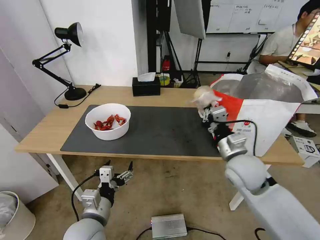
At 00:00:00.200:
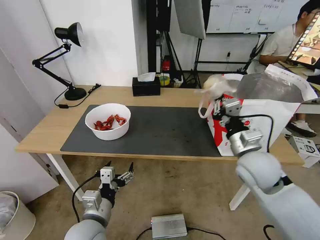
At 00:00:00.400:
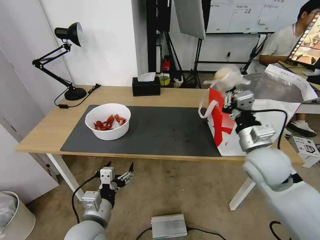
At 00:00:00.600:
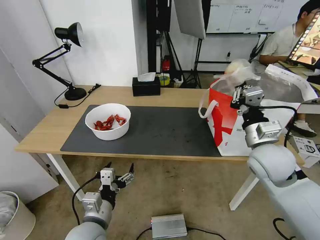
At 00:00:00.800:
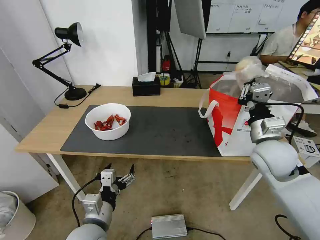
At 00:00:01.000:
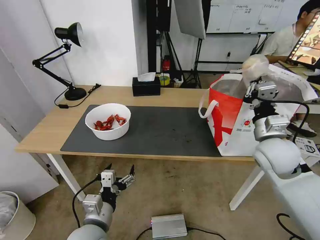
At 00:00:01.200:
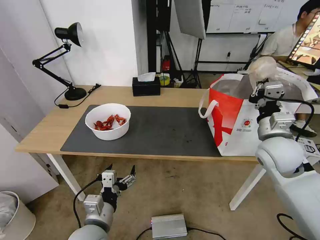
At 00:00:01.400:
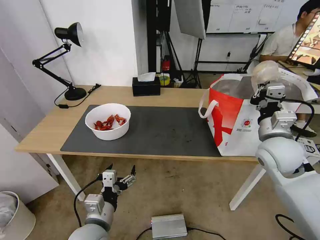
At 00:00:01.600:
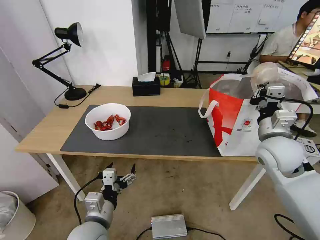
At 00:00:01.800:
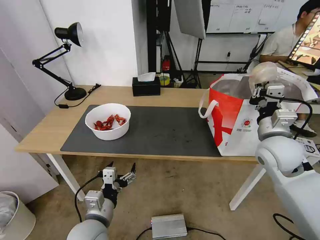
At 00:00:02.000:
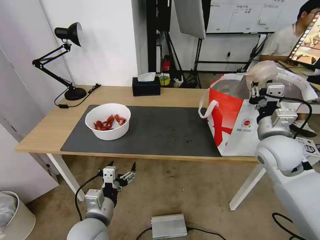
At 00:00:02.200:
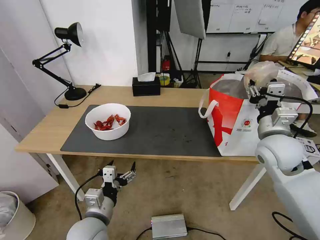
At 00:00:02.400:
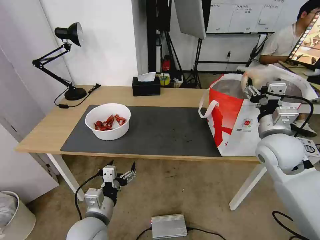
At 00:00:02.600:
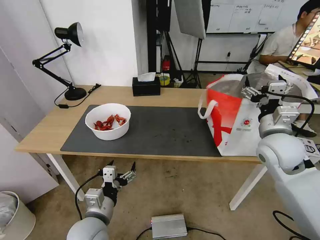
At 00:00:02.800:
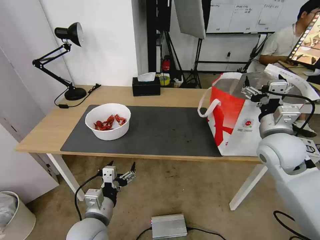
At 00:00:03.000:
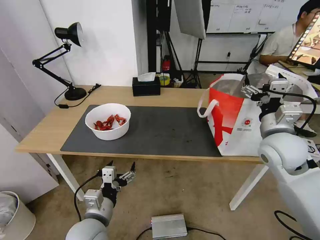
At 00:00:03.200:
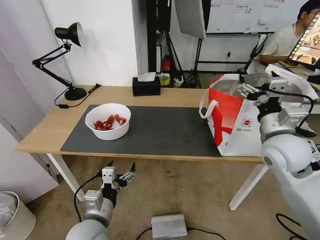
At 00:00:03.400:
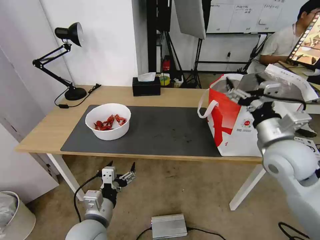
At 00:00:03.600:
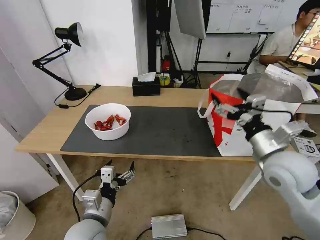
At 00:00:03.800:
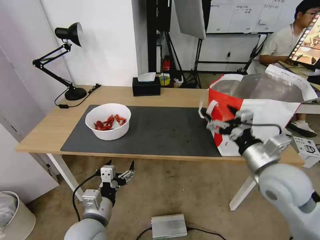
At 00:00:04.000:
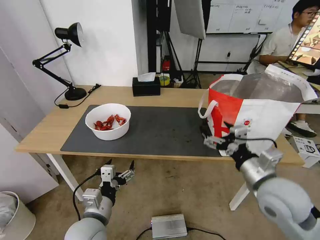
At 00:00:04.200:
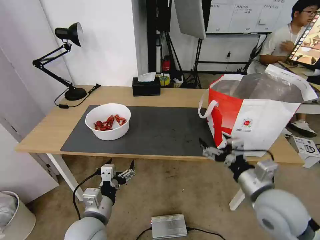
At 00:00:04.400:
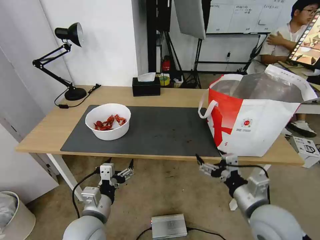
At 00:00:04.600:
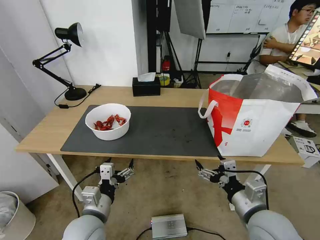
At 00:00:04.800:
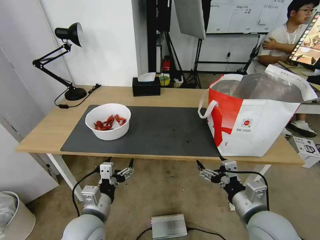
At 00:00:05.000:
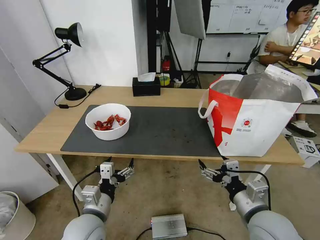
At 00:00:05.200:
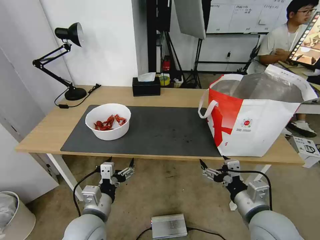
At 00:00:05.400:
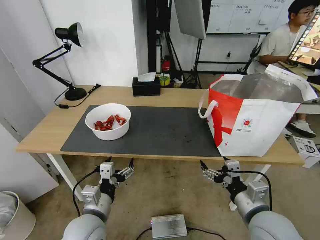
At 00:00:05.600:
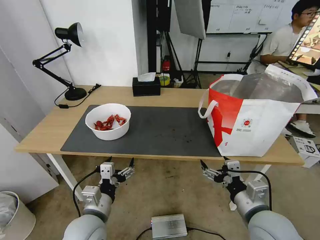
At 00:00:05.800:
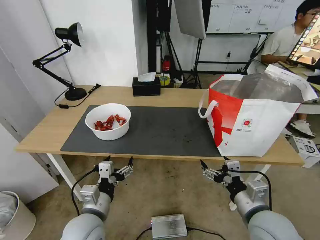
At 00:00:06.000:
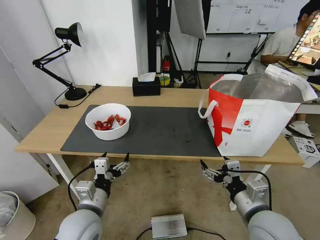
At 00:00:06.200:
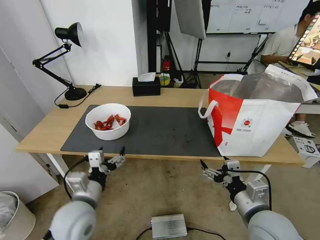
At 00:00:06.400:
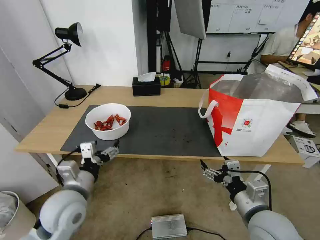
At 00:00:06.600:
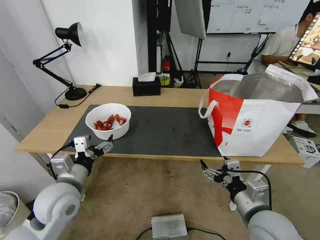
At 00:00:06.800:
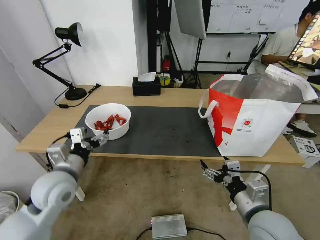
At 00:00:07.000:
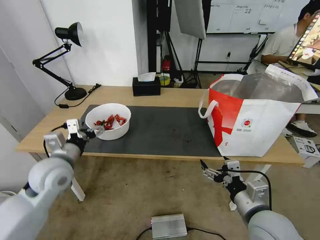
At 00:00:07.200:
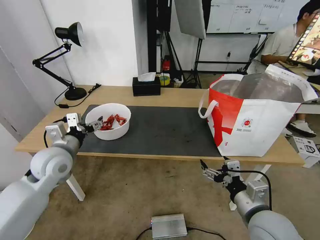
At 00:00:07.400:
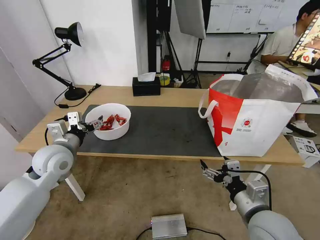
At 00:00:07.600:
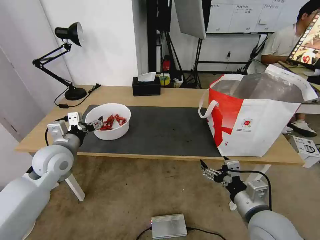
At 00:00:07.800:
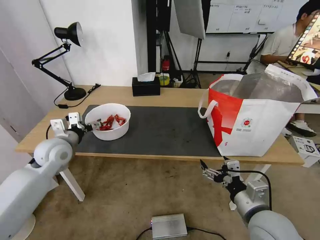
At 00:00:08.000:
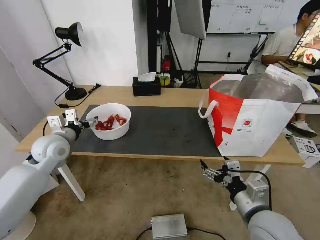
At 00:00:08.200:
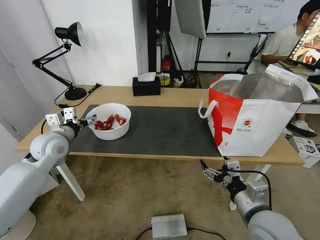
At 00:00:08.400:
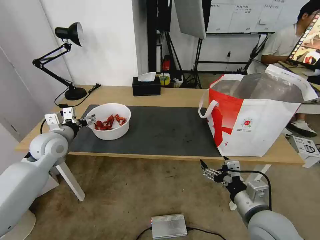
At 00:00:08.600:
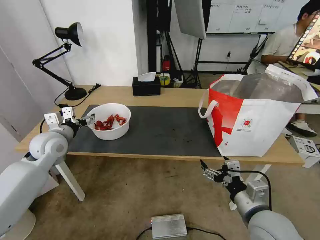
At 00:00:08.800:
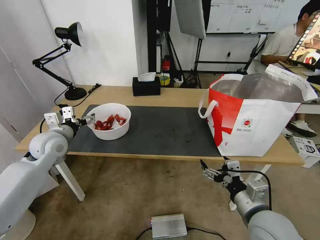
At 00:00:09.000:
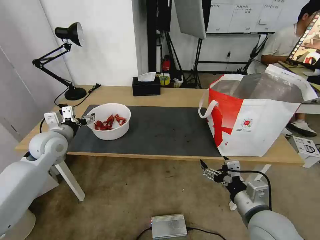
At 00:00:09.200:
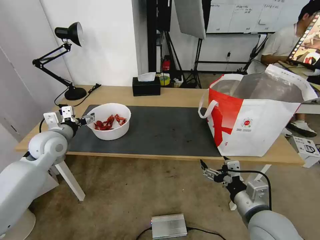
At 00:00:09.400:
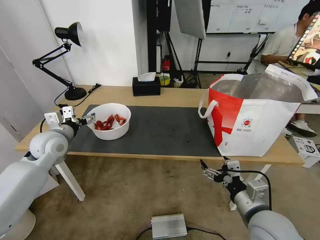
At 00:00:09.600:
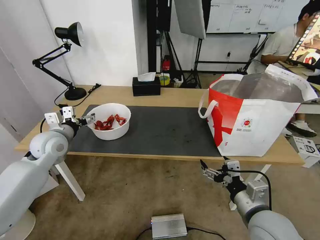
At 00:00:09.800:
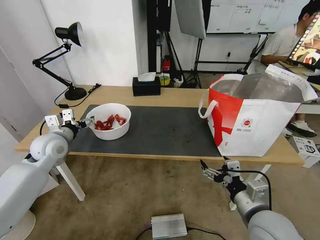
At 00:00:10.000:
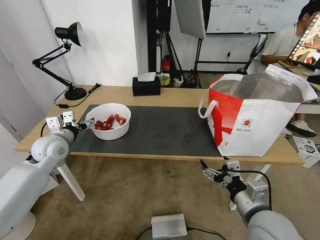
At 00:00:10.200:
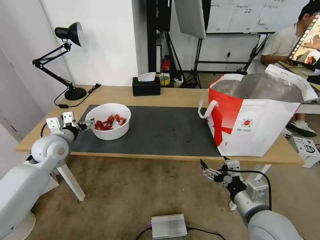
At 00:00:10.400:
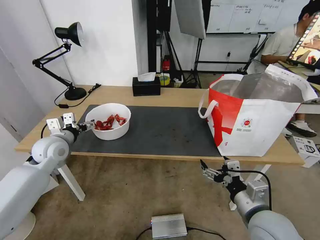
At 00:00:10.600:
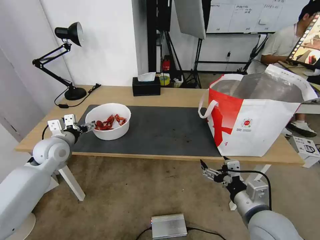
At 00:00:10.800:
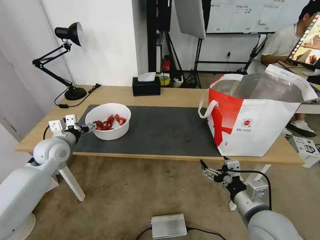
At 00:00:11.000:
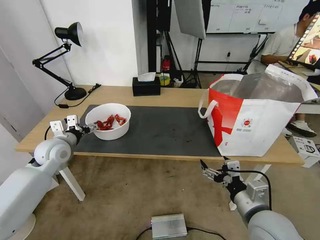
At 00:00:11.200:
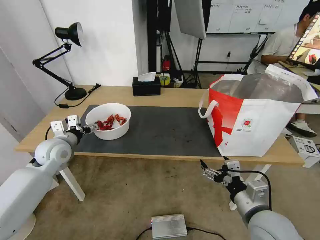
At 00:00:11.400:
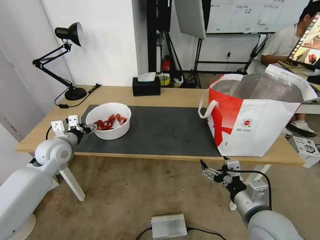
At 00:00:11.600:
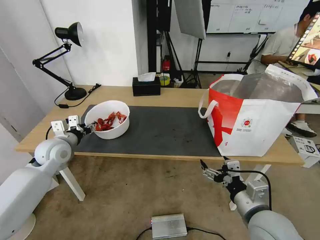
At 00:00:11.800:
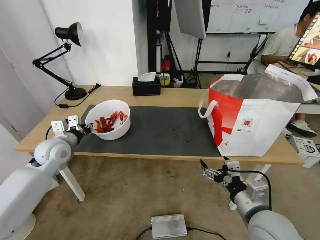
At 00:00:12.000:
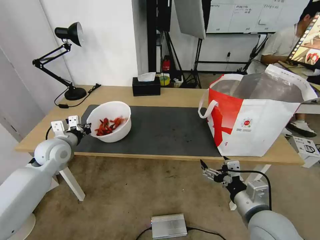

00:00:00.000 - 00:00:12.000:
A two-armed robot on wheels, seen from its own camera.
Task of the whole recording: Pick up the trash from the table and place it into the takeout bag.
00:00:00.000 - 00:00:01.600: The right gripper heads to the right and upward, covering about 10 cm.
00:00:01.600 - 00:00:03.000: The right gripper opens.
00:00:03.000 - 00:00:04.400: The right gripper goes about 20 cm backward and downward.
00:00:04.400 - 00:00:06.000: There are only small adjustments of the grippers.
00:00:06.000 - 00:00:07.600: The left gripper moves forward, to the left and upward, about 20 cm.
00:00:07.600 - 00:00:09.000: The left gripper goes approximately 5 cm forward.
00:00:09.000 - 00:00:10.400: The grippers make only small movements.
00:00:10.400 - 00:00:12.000: The left gripper closes up.

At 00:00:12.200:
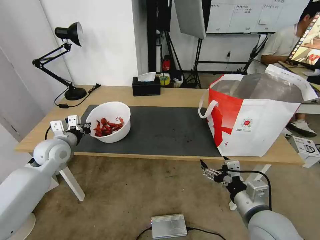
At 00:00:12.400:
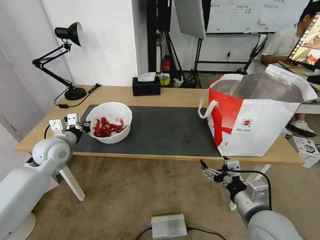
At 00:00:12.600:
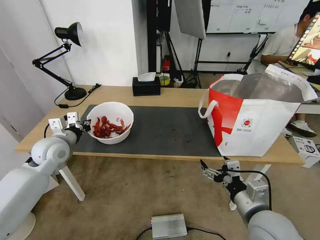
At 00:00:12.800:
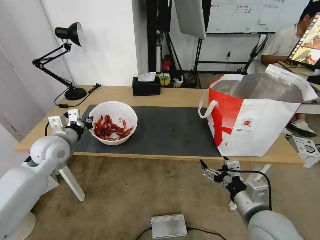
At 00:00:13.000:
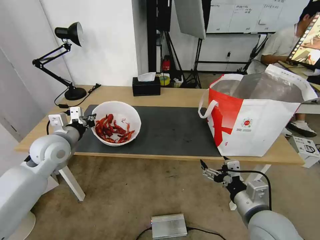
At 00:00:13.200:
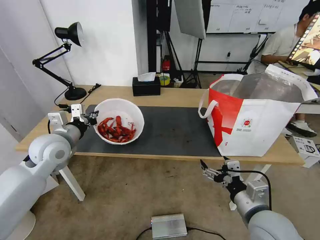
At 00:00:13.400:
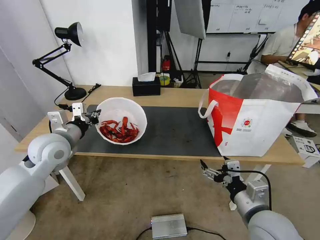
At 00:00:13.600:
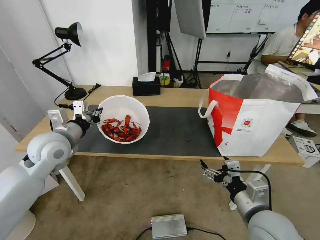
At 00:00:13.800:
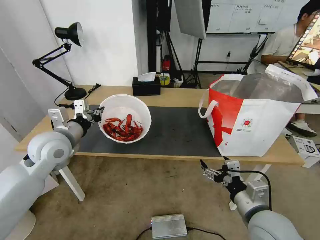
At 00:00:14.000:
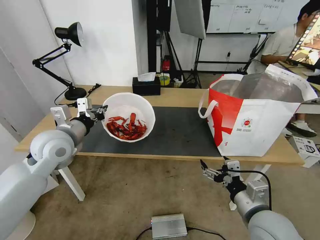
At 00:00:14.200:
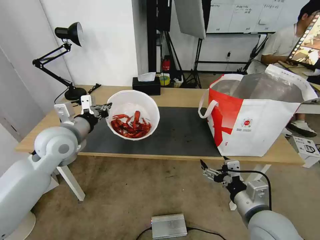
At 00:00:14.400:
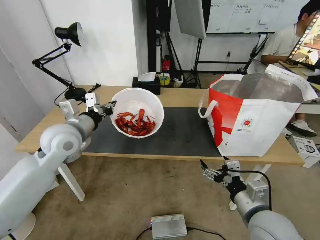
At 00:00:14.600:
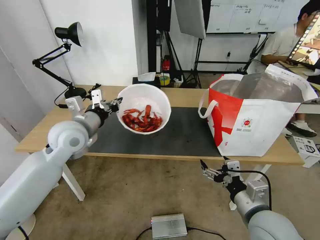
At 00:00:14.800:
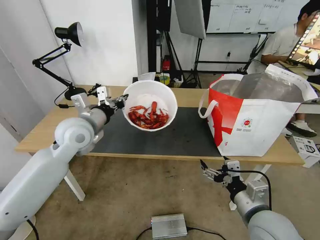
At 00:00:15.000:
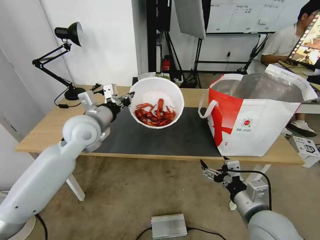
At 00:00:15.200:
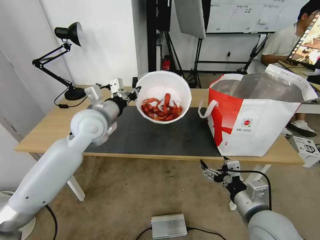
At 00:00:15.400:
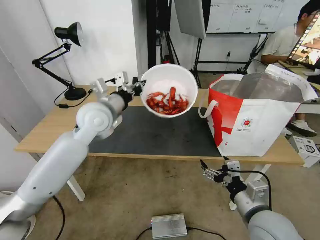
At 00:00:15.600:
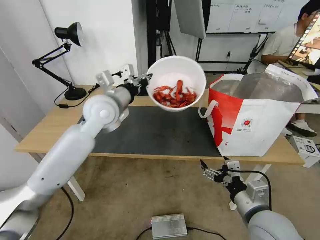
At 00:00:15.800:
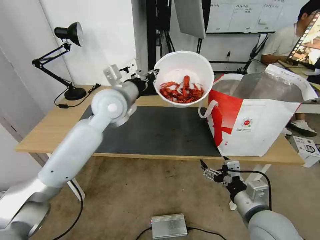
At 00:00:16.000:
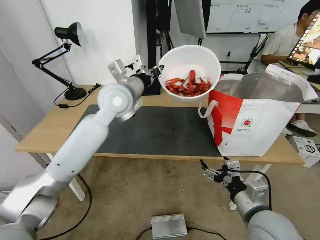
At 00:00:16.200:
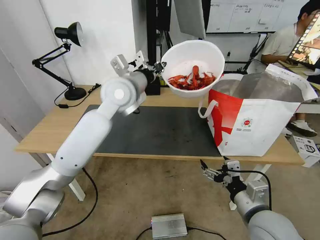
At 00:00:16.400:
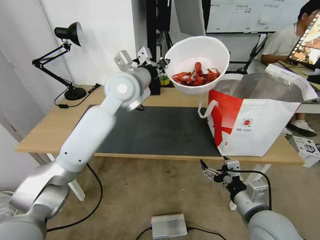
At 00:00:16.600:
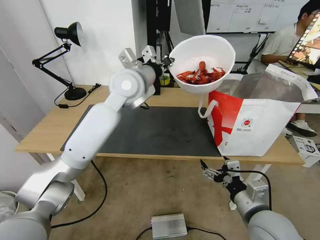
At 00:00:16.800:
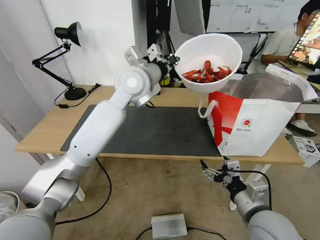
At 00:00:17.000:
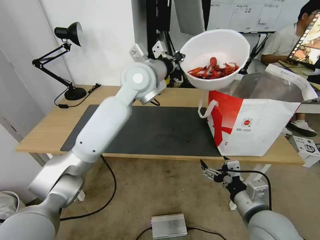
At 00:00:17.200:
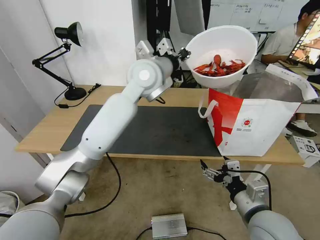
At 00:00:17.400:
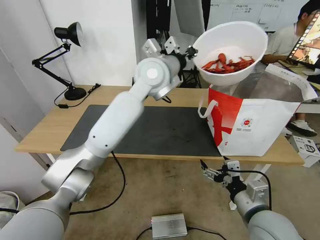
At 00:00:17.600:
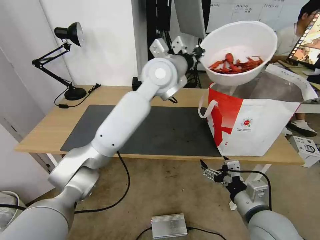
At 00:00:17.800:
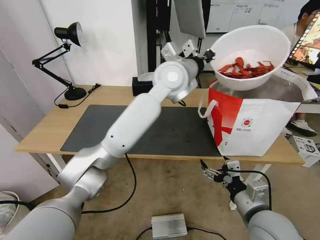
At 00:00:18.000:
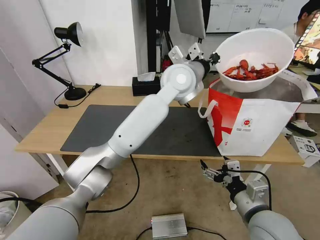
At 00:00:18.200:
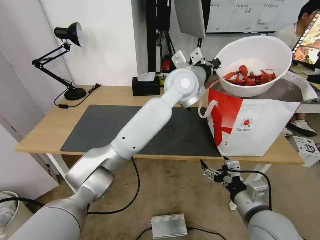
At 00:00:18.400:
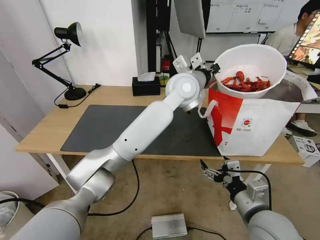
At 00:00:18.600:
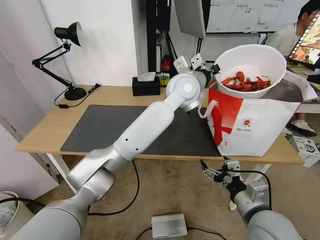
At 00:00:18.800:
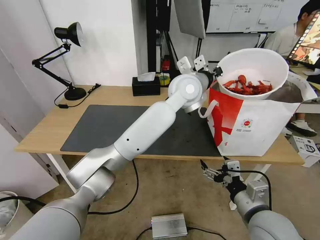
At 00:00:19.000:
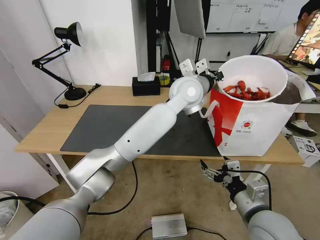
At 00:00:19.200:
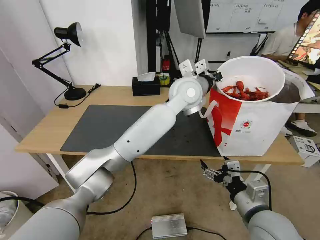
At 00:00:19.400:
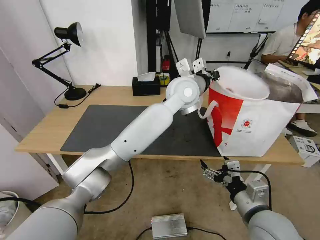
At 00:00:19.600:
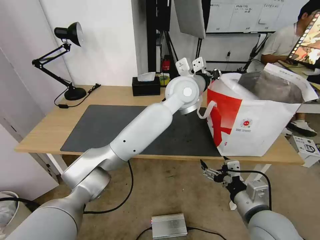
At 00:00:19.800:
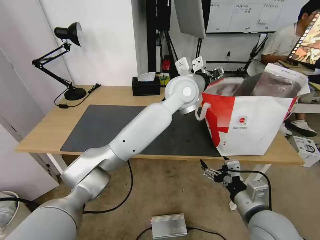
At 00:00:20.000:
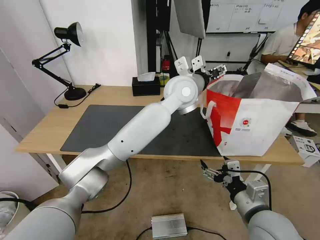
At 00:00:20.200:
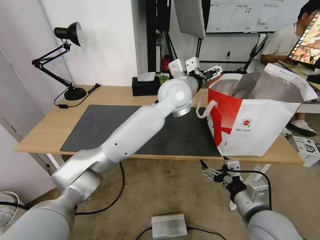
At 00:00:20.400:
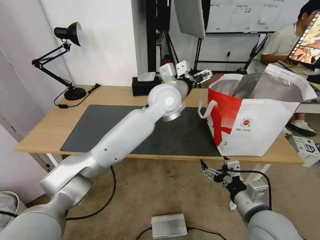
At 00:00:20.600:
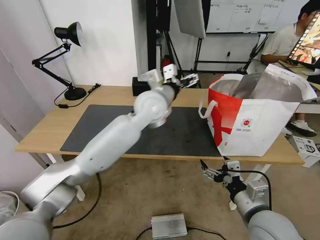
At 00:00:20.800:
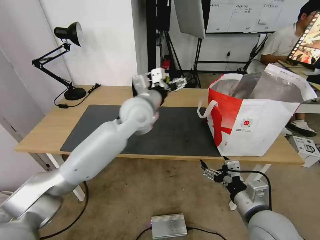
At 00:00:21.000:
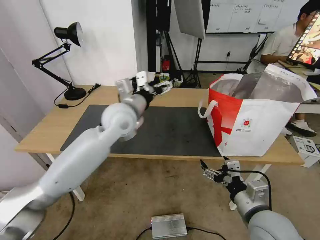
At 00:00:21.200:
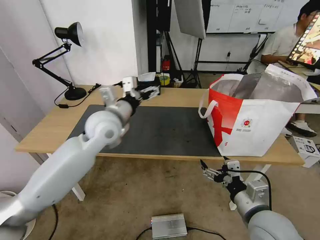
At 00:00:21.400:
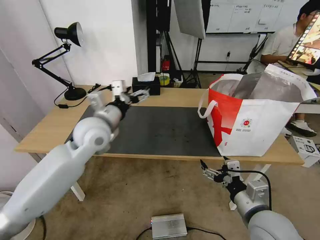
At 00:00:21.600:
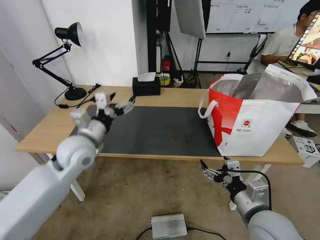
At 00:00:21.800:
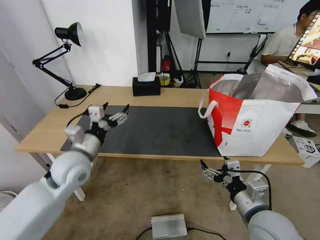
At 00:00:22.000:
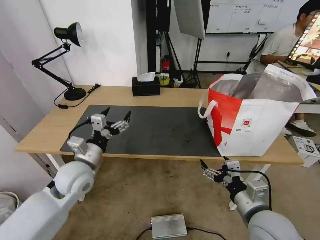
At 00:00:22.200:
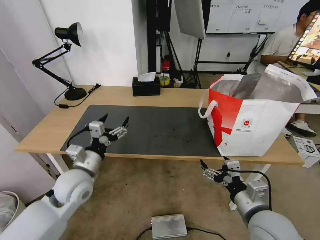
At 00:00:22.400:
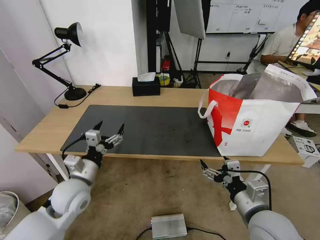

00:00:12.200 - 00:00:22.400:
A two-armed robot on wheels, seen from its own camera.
Task of the whole recording: Pick up the trash from the table and place it into the takeout bag.
00:00:12.200 - 00:00:13.600: The left gripper heads upward, covering some 5 cm.
00:00:13.600 - 00:00:15.200: The left gripper travels to the right and forward by approximately 10 cm.
00:00:15.200 - 00:00:16.600: The left gripper moves to the right, upward and forward, roughly 15 cm.
00:00:16.600 - 00:00:18.000: The left gripper goes some 15 cm to the right.
00:00:18.000 - 00:00:19.400: There are only small adjustments of the grippers.
00:00:19.400 - 00:00:21.000: The left gripper heads to the left, covering approximately 20 cm, and opens its fingers.
00:00:21.000 - 00:00:22.400: The left gripper shifts approximately 25 cm downward, backward and to the left.
